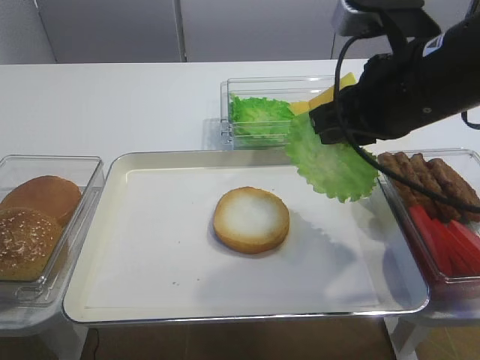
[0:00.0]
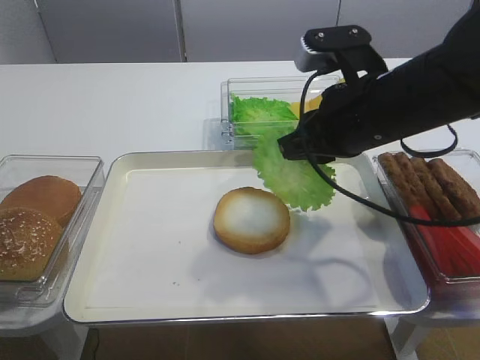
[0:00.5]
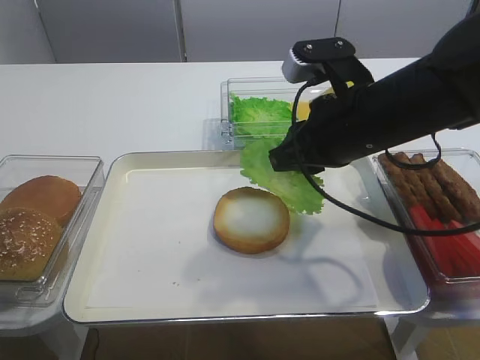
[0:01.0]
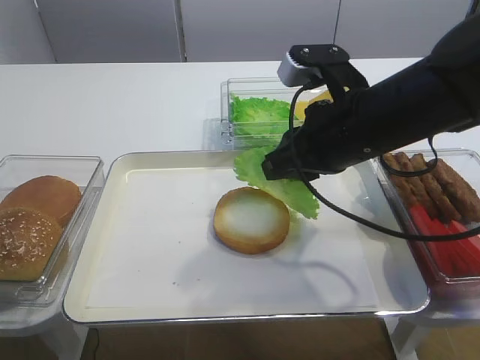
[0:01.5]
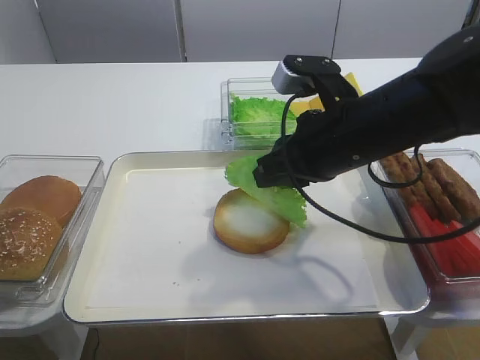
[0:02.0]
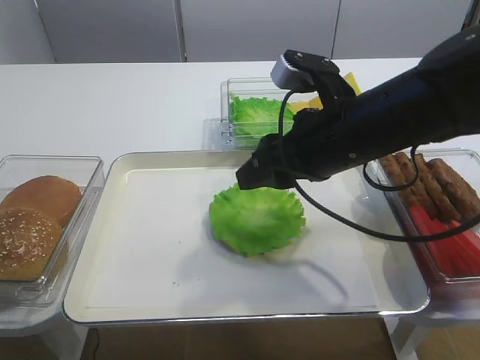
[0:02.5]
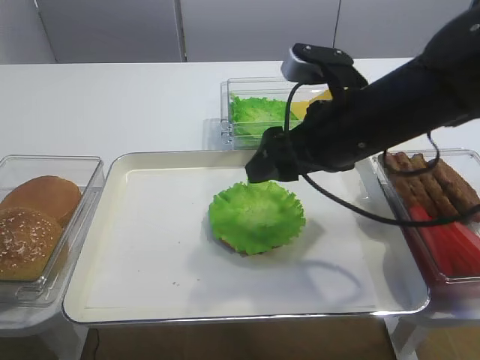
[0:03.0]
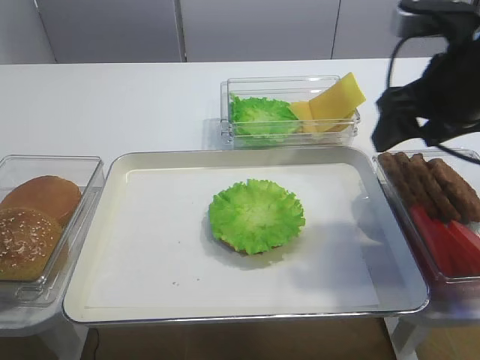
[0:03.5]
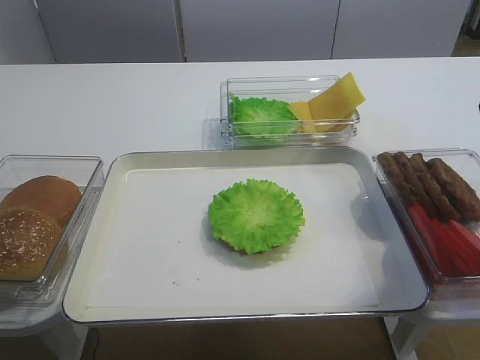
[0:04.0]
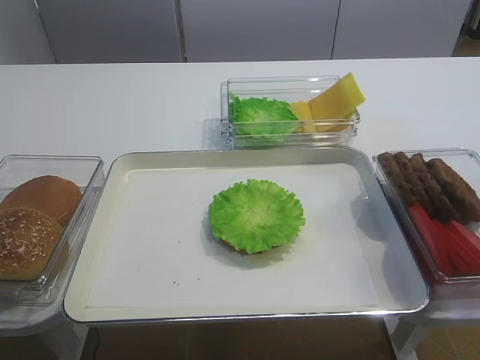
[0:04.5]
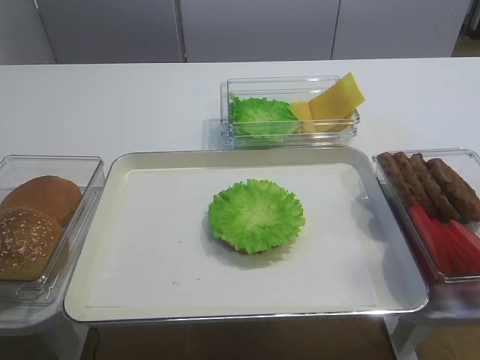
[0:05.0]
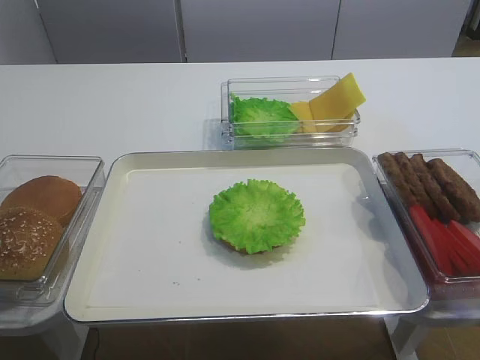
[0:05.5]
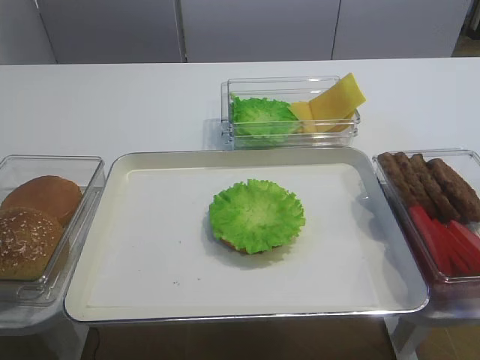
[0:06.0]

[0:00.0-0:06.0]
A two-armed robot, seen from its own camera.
Step, 0:00.0 to 0:03.0: Place the lettuce leaf on the bread slice with the right gripper.
0:00.0 to 0:02.0: The right gripper shifts roughly 5 cm downward.
0:02.0 to 0:04.0: The right gripper heads to the right and upward, covering roughly 20 cm, and opens.
0:04.0 to 0:06.0: The right gripper goes approximately 25 cm backward.

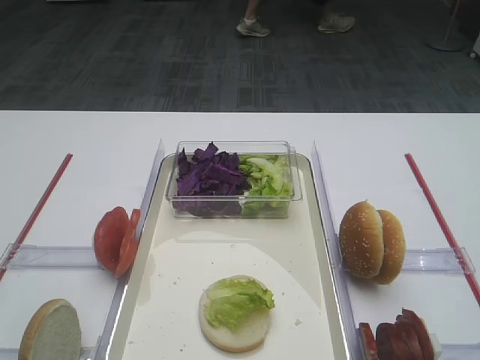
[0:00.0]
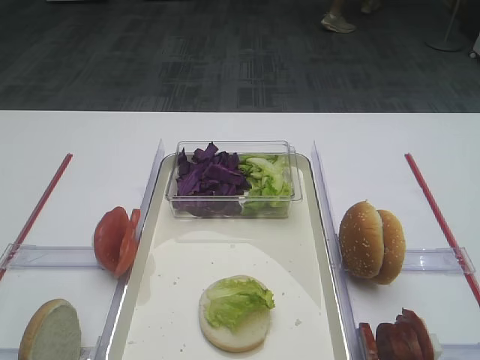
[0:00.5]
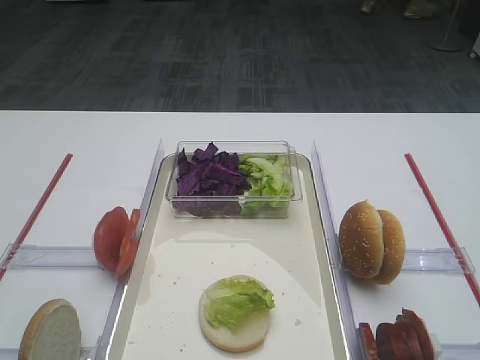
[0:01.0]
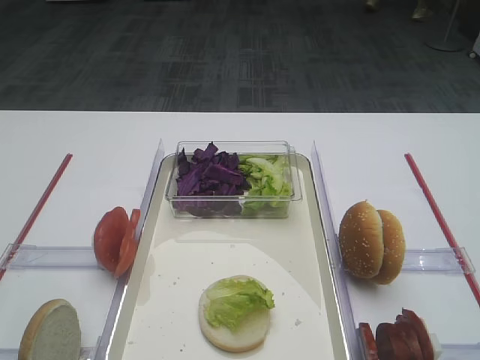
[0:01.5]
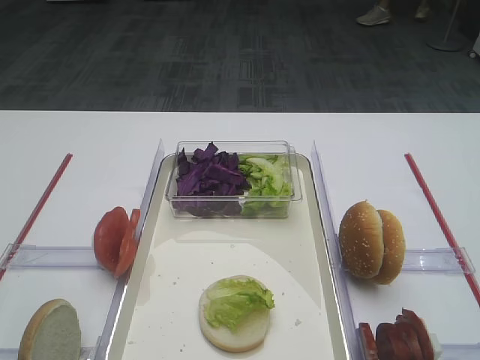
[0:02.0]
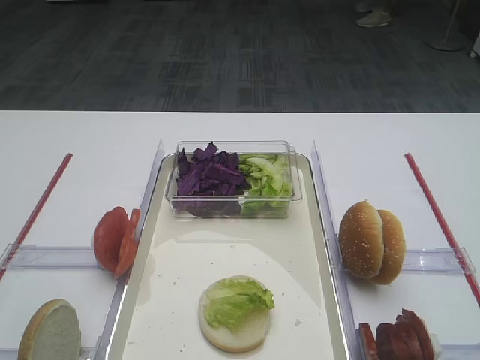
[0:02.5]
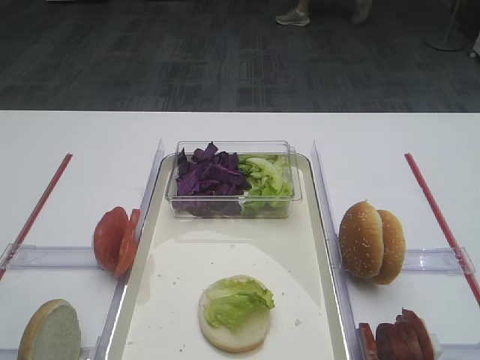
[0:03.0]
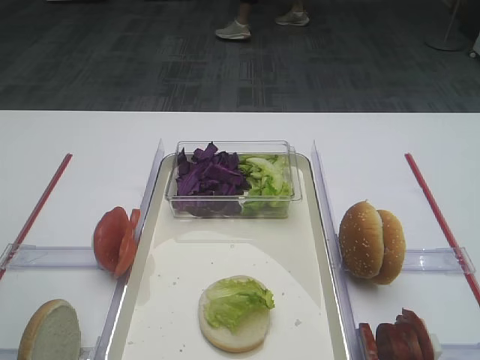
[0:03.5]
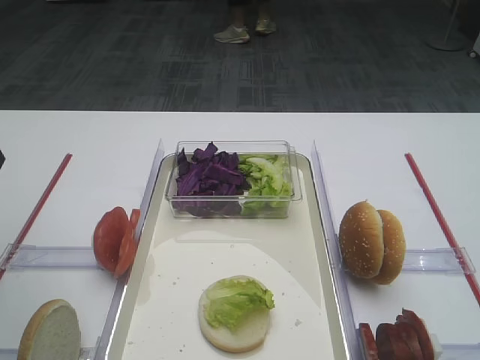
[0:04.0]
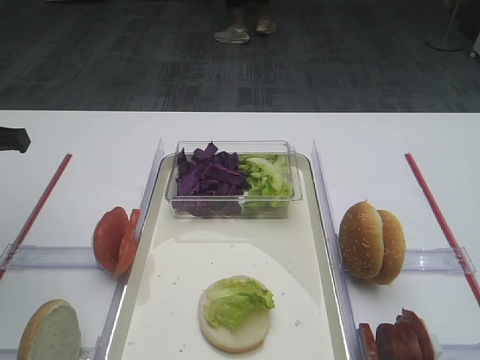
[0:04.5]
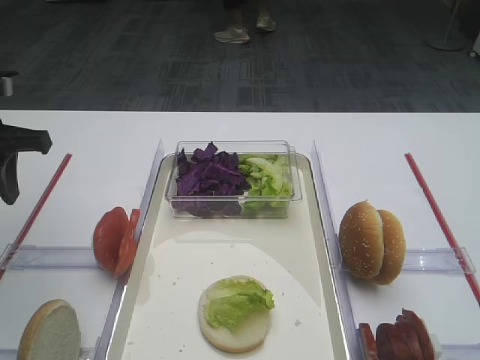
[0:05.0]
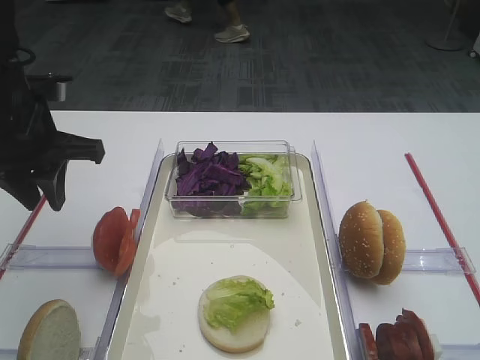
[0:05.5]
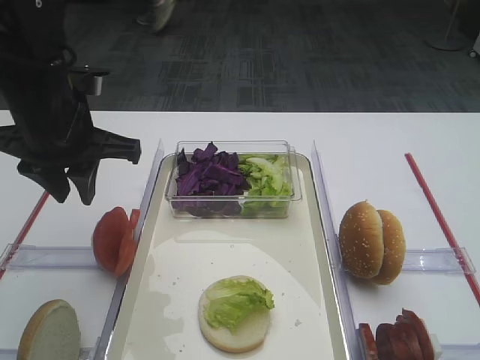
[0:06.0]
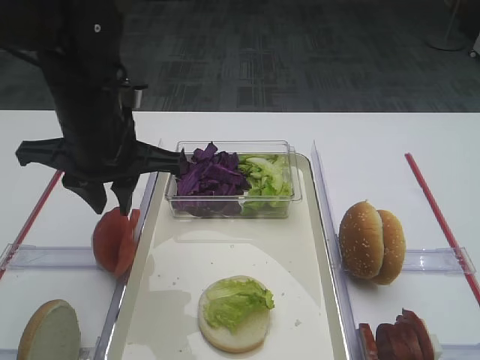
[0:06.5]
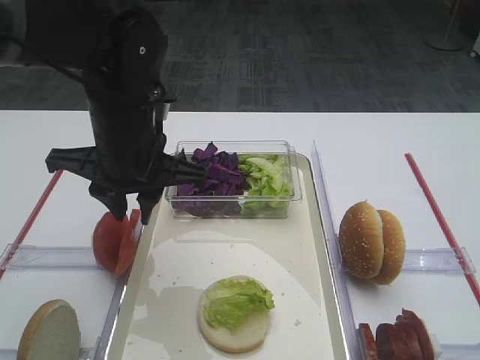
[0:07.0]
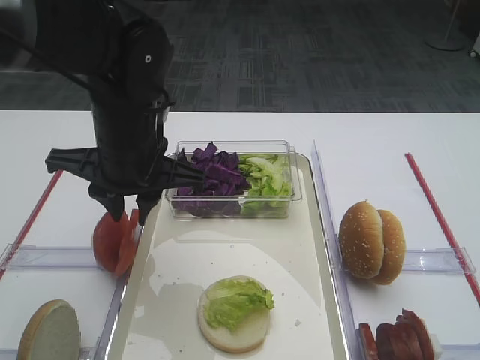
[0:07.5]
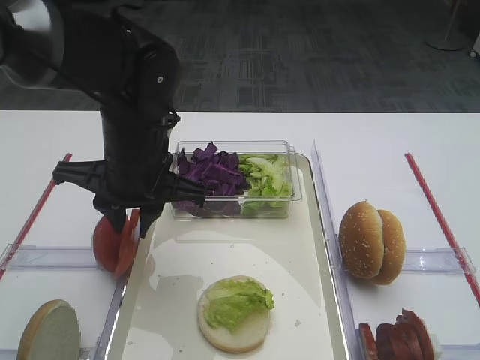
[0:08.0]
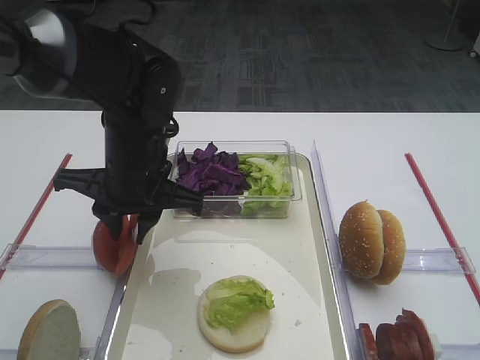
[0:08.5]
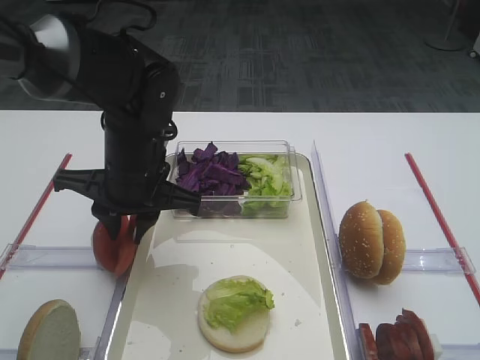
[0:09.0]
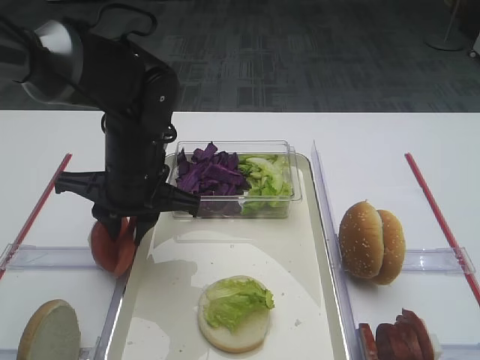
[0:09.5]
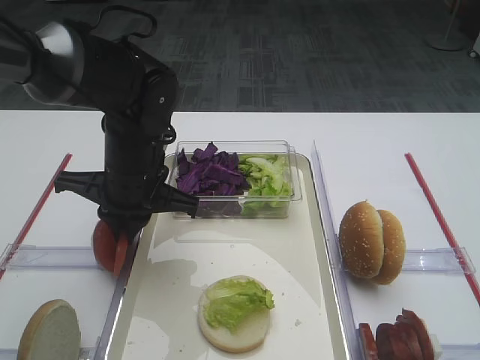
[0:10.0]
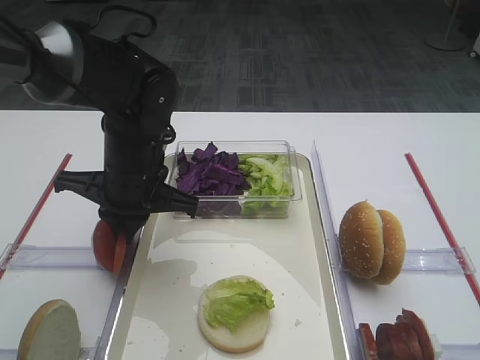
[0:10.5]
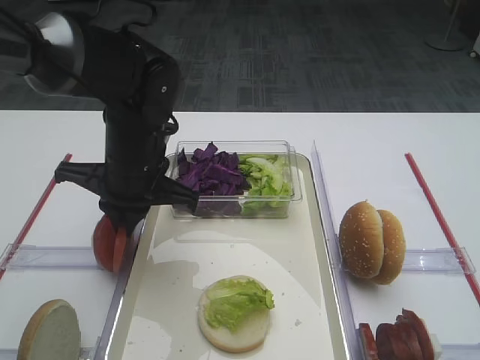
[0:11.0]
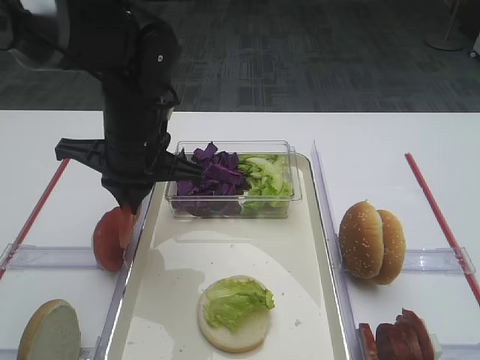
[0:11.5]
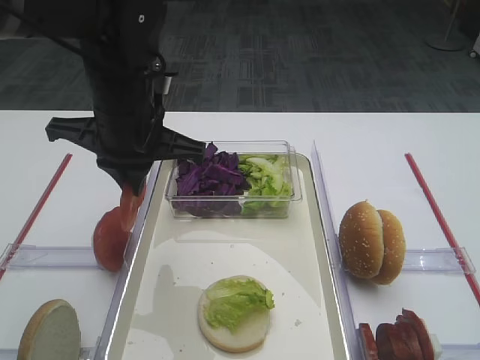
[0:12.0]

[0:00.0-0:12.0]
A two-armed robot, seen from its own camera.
Step, 0:00.0 to 0:11.5: Pick up the tomato slice with the left gripper.
0:02.0 to 0:04.0: The left gripper travels forward by about 25 cm.
0:04.0 to 0:06.0: The left gripper shifts approximately 15 cm to the right and forward.
0:06.0 to 0:08.0: The left gripper travels to the right by approximately 10 cm.
0:08.0 to 0:10.0: The left gripper closes.
0:10.0 to 0:12.0: The left gripper is displaced upward by roughly 10 cm.

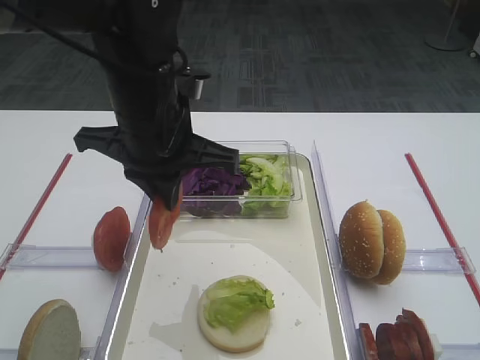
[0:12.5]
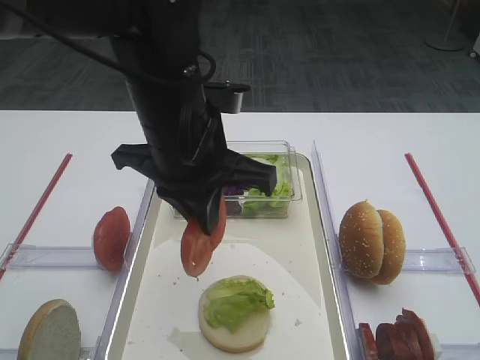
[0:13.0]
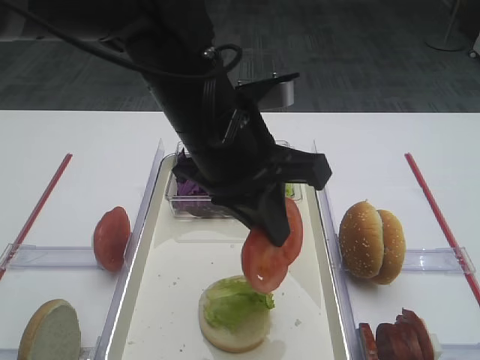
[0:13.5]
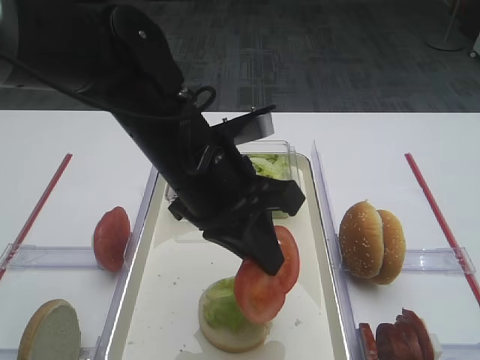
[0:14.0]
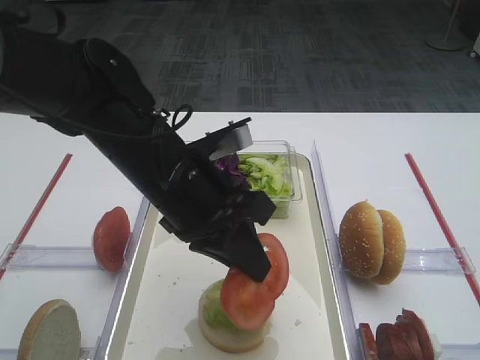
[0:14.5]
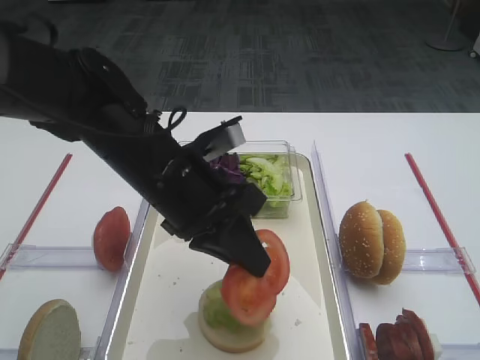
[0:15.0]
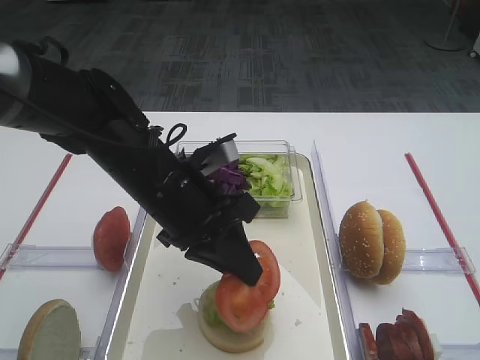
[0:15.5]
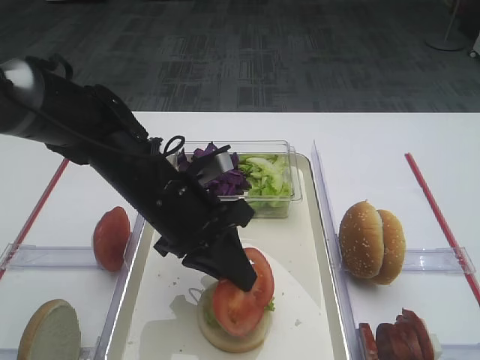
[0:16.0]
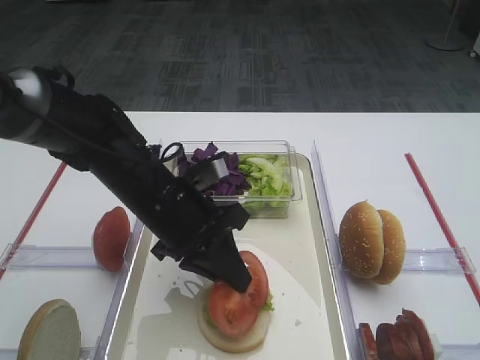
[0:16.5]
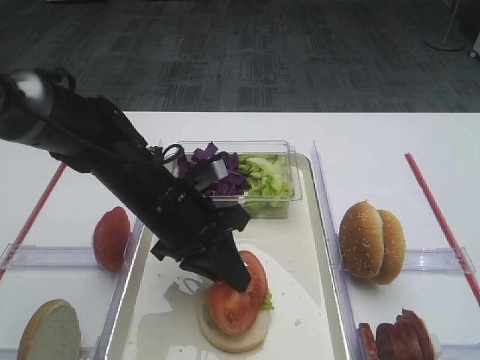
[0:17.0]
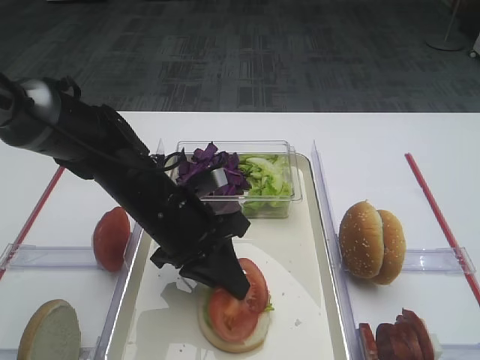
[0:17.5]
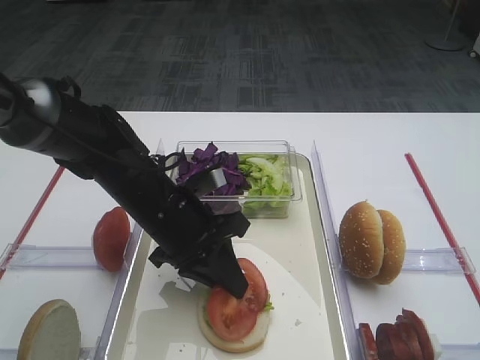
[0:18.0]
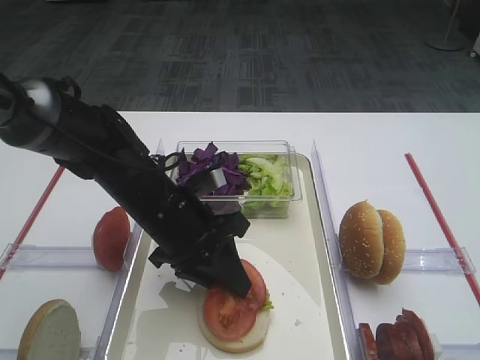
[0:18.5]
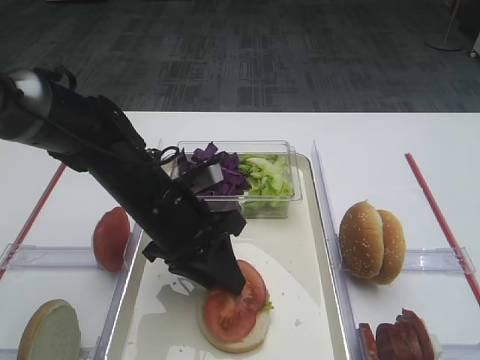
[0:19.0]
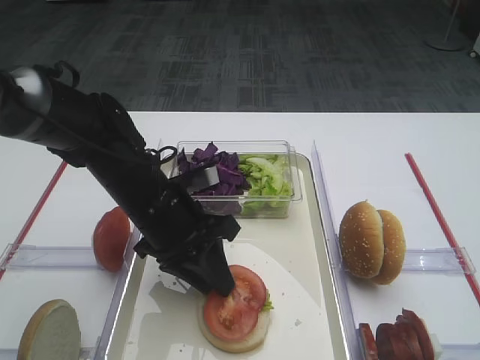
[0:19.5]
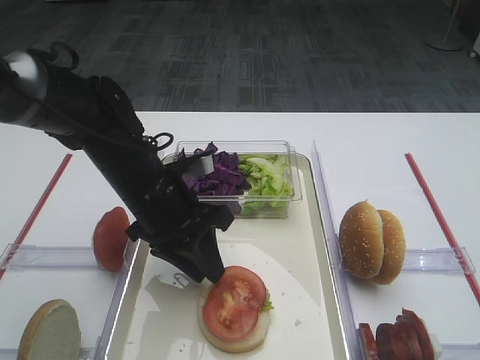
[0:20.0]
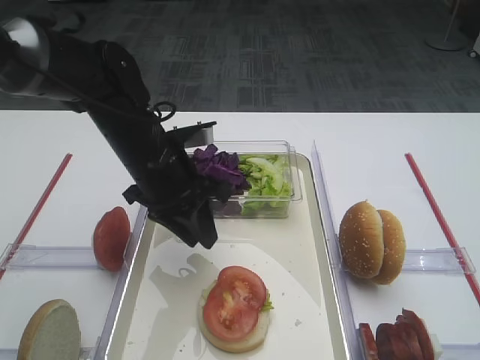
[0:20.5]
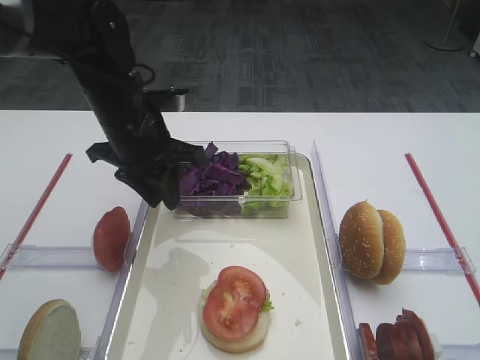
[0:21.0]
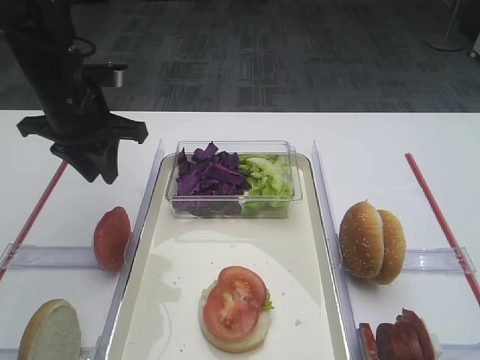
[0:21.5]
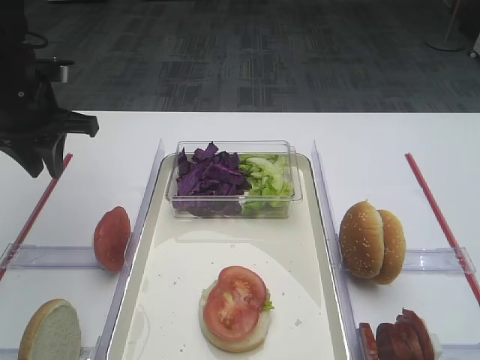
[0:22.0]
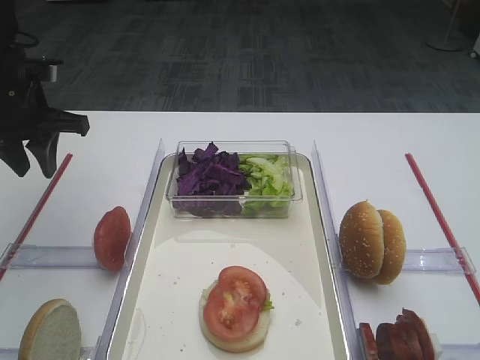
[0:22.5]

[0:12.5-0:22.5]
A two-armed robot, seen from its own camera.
Step, 0:12.5 to 0:20.0: Place the tomato slice on the lettuce leaf with the left gripper.
0:12.5 to 0:14.5: The left gripper changes place by about 5 cm.
0:14.5 to 0:16.5: The left gripper is displaced downward by about 5 cm.
0:16.5 to 0:18.5: The left gripper opens its fingers.
0:18.5 to 0:20.5: The left gripper changes place by approximately 5 cm.
0:20.5 to 0:22.5: The left gripper shifts approximately 15 cm to the left.
